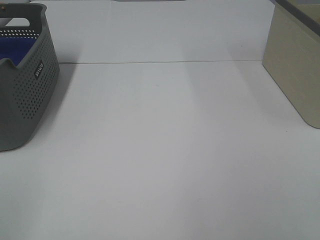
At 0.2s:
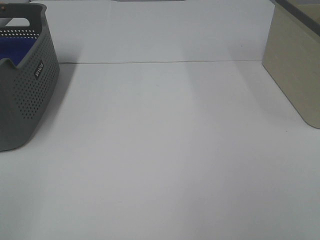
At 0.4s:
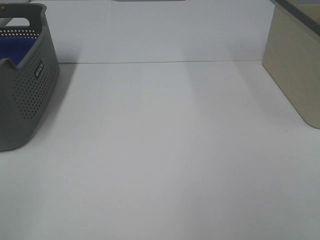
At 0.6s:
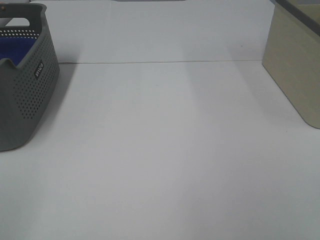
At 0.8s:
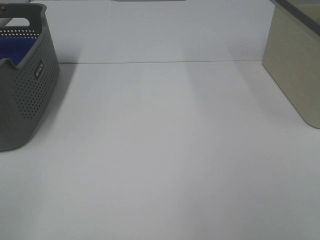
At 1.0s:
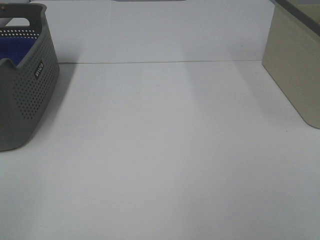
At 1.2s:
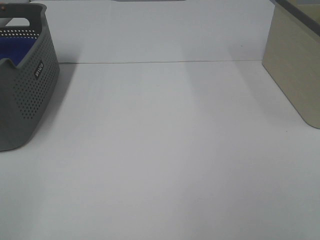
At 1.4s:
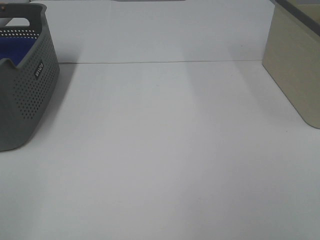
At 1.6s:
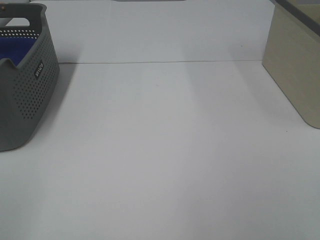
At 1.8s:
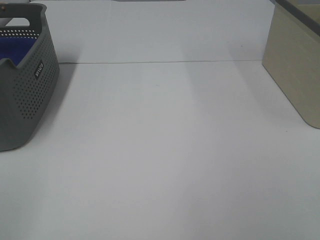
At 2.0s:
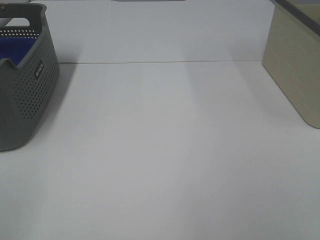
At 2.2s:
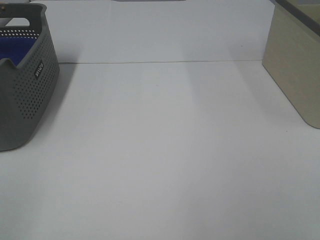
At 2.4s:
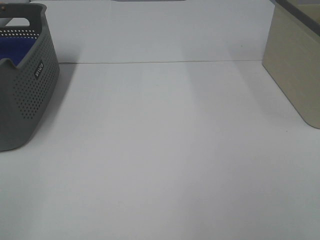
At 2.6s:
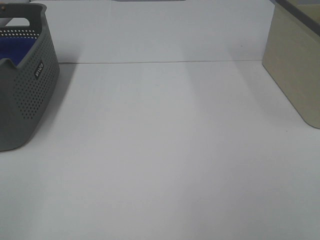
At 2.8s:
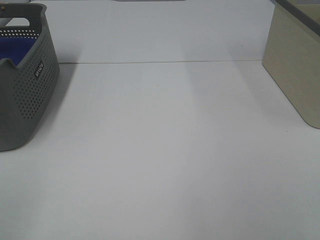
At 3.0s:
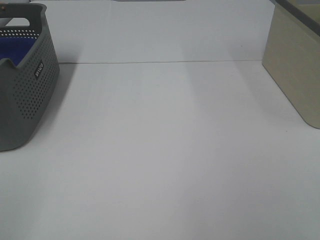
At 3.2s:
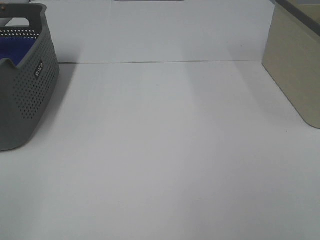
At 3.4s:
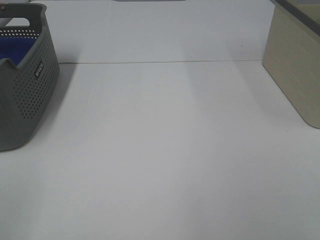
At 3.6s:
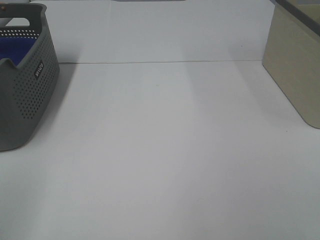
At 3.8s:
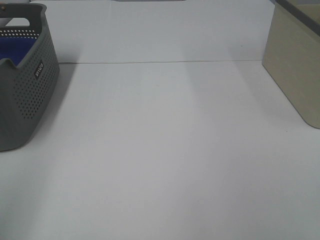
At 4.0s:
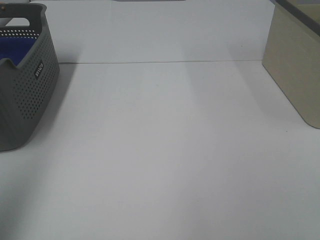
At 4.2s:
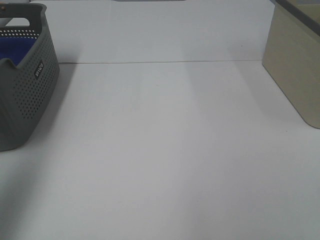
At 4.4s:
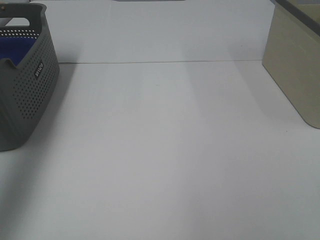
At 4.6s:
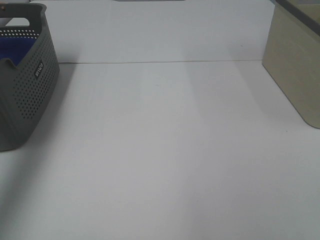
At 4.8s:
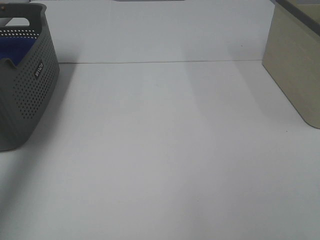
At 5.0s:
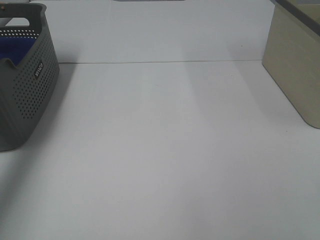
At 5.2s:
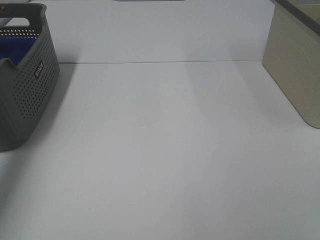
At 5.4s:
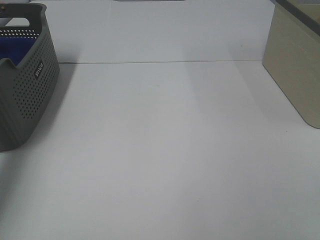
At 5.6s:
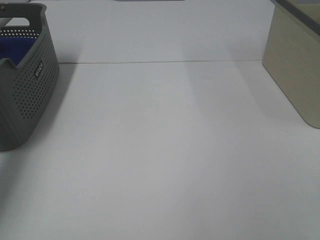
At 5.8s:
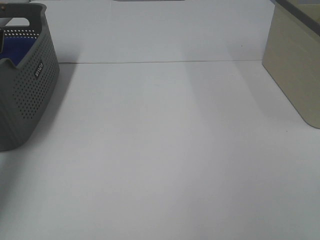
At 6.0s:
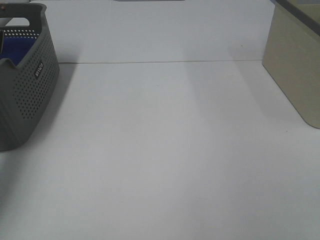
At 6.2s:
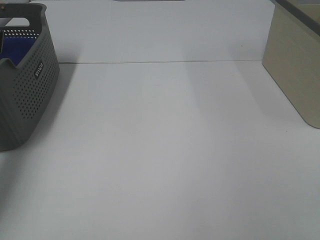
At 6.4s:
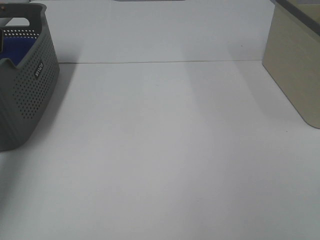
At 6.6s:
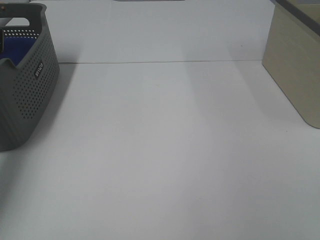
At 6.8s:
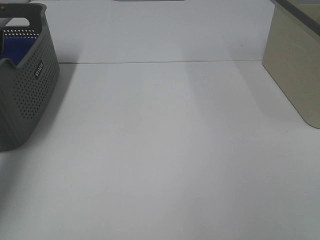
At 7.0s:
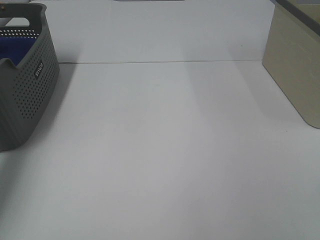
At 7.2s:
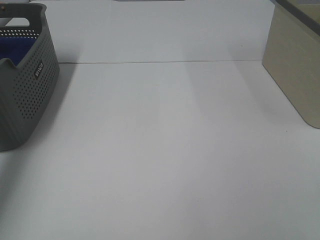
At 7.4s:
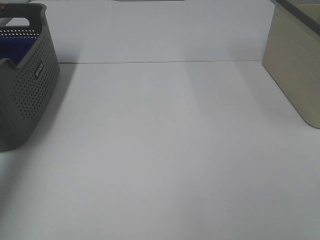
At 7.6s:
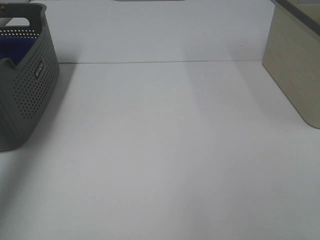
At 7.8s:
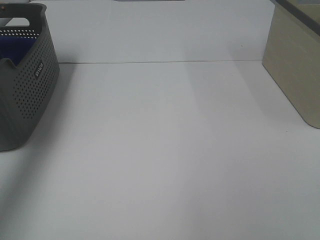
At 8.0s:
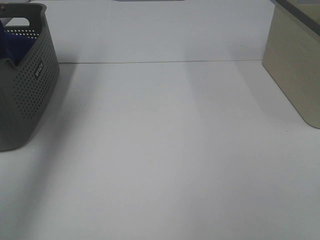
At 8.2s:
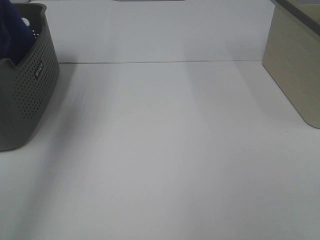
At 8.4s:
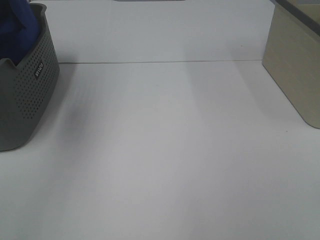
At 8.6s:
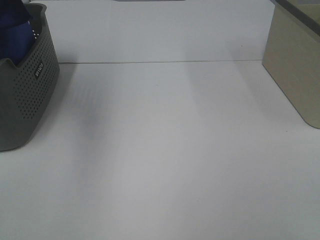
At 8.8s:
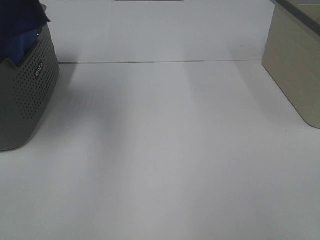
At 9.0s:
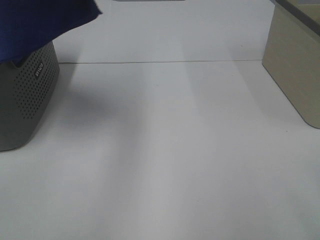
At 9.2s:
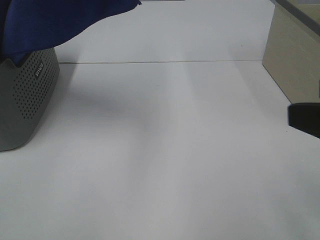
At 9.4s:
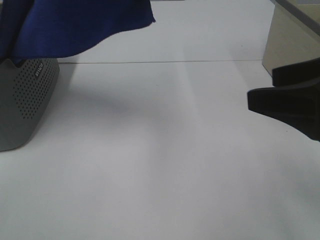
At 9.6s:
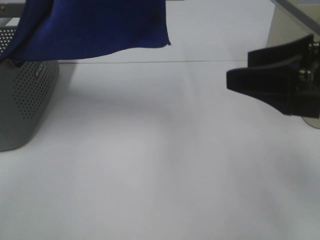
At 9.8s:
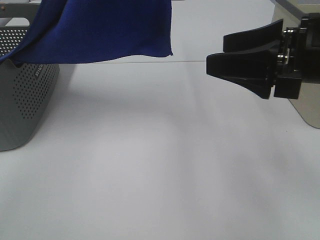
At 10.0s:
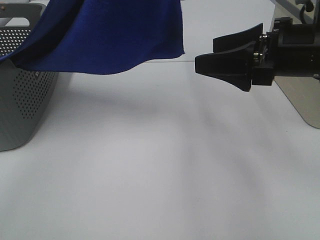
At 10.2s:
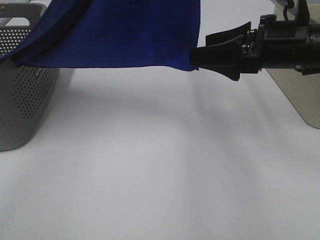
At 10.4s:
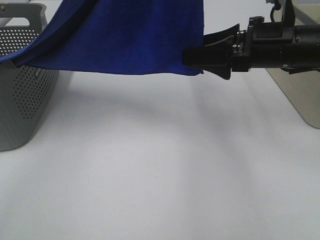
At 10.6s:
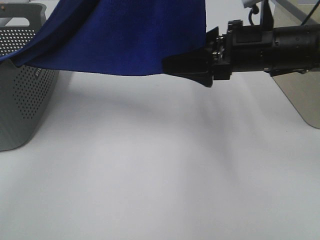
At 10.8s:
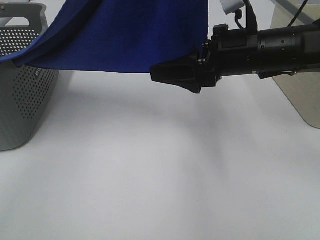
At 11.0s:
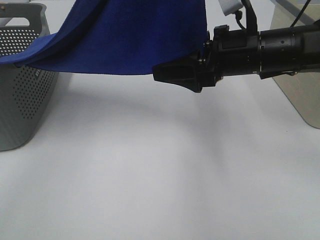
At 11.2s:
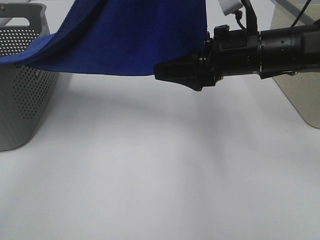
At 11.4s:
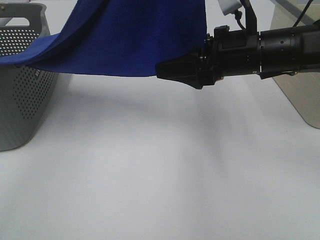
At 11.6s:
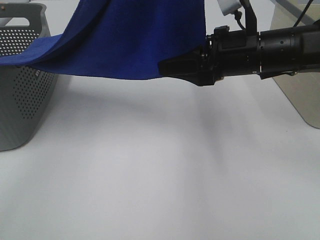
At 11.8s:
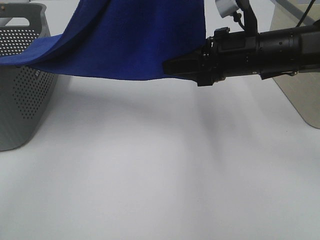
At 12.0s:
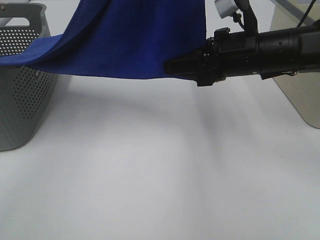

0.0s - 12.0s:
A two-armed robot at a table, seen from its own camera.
Task of the whole recording: Remove the towel and place it.
0.0s - 3.0s: Neither gripper changes place.
3.0s - 4.4s: The left gripper moves forward and upward, roughly 30 cm.
4.4s - 6.0s: The left gripper travels downward and forward by roughly 25 cm.
6.0s - 7.6s: The left gripper travels upward by approximately 15 cm, and closes.
7.6s - 9.0s: The left gripper shifts some 30 cm to the right, upward and backward, while the right gripper shifts some 5 cm forward.
9.0s - 10.4s: The left gripper is displaced to the right and downward by some 15 cm. Meanwhile the right gripper travels forward by approximately 25 cm.
10.4s - 12.0s: The right gripper closes its fingers.

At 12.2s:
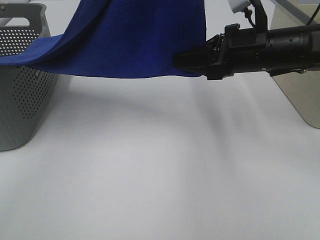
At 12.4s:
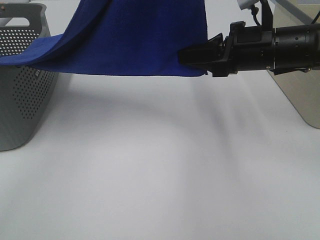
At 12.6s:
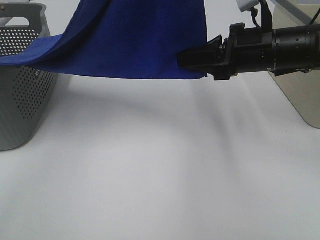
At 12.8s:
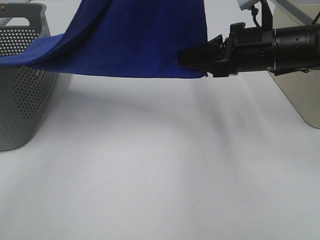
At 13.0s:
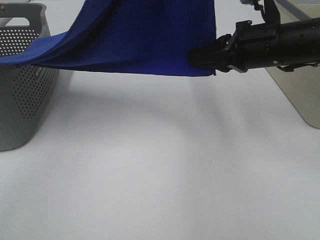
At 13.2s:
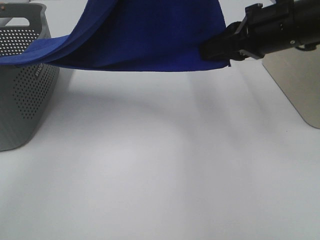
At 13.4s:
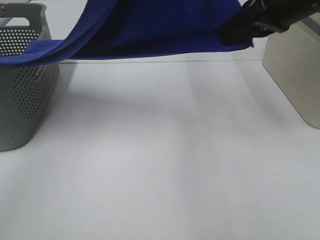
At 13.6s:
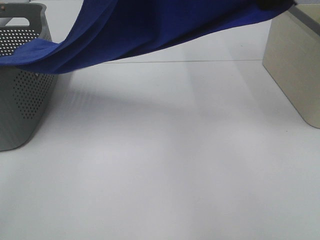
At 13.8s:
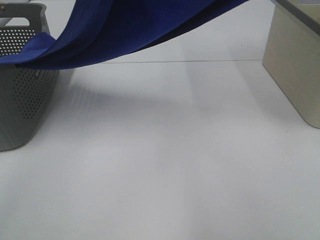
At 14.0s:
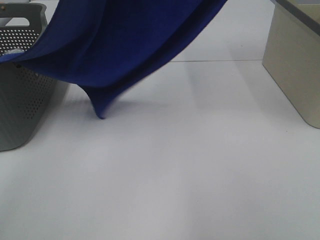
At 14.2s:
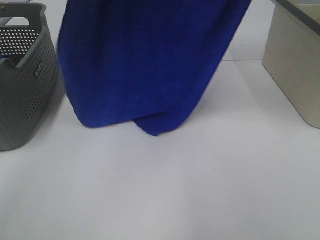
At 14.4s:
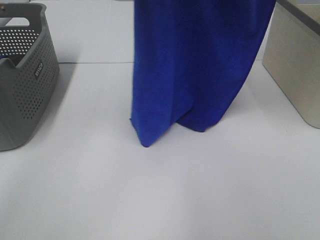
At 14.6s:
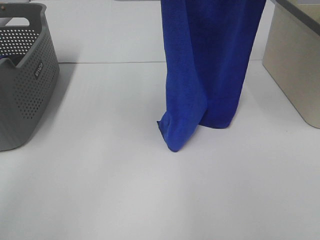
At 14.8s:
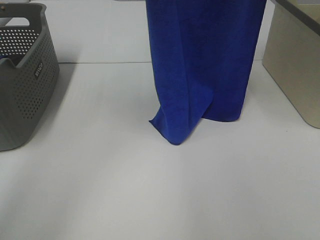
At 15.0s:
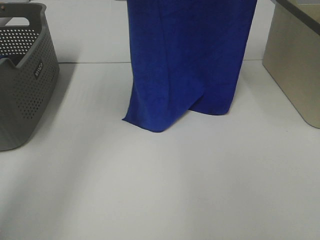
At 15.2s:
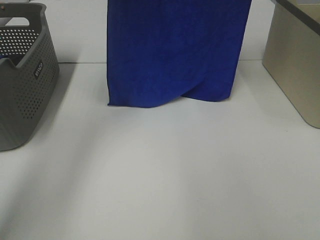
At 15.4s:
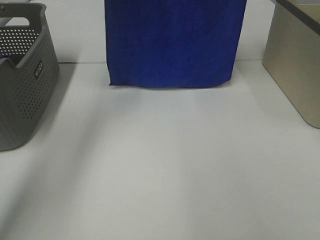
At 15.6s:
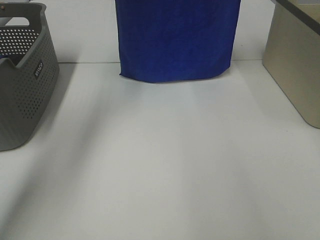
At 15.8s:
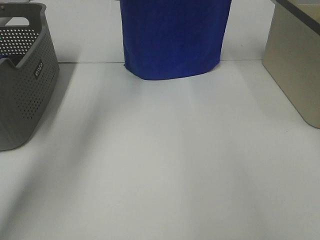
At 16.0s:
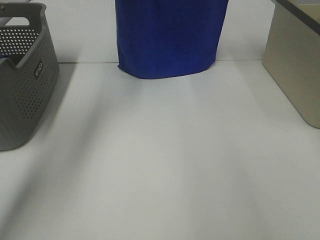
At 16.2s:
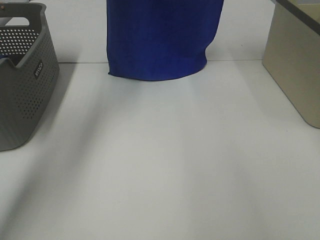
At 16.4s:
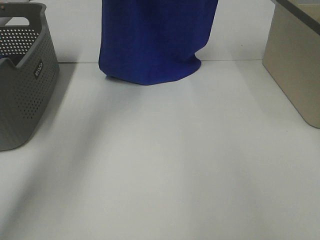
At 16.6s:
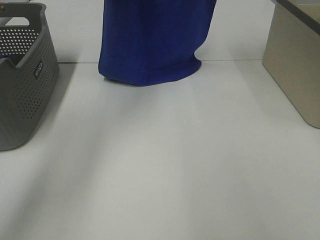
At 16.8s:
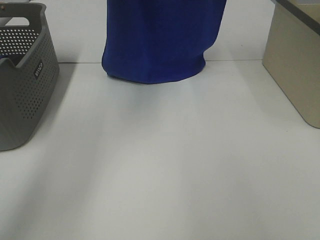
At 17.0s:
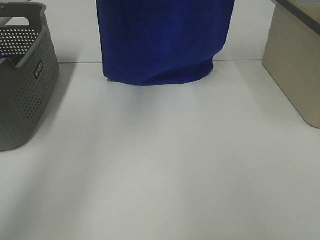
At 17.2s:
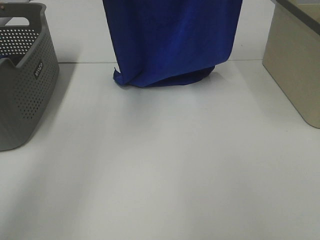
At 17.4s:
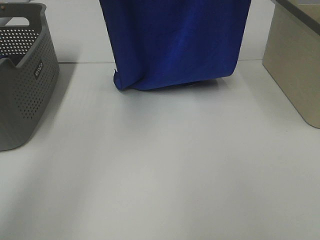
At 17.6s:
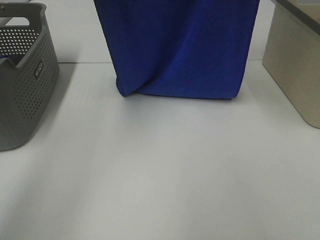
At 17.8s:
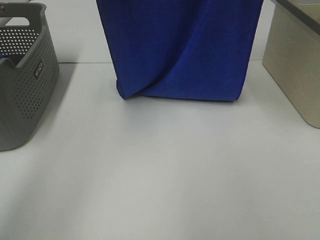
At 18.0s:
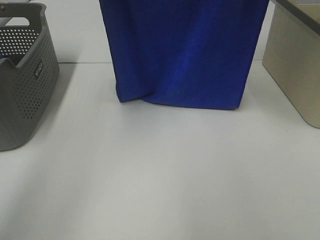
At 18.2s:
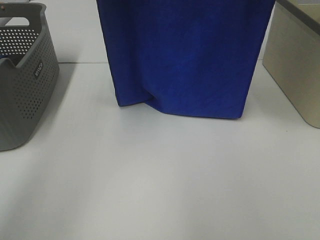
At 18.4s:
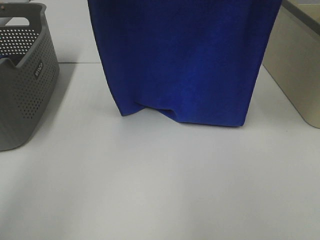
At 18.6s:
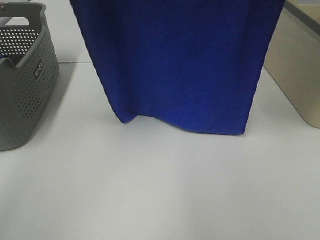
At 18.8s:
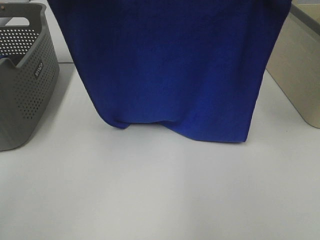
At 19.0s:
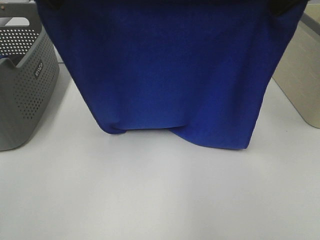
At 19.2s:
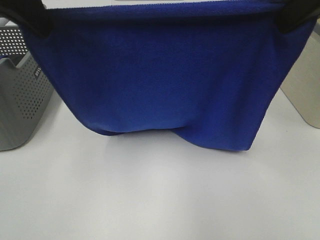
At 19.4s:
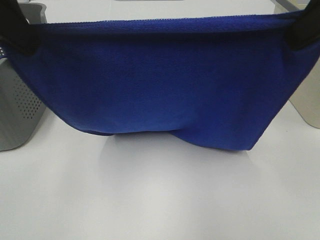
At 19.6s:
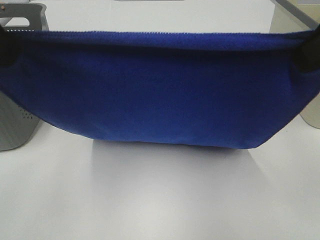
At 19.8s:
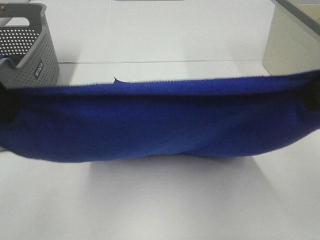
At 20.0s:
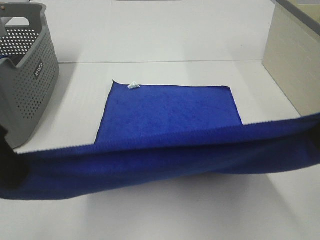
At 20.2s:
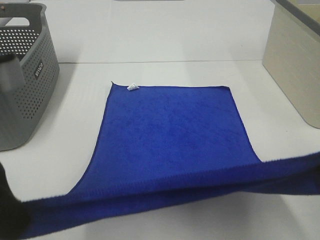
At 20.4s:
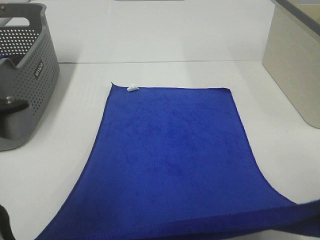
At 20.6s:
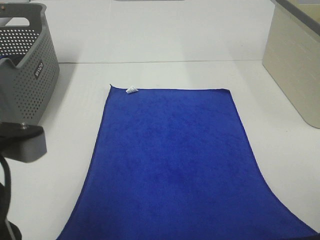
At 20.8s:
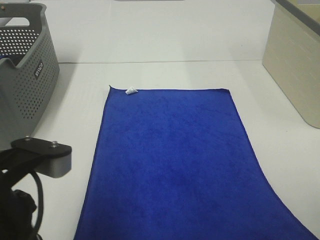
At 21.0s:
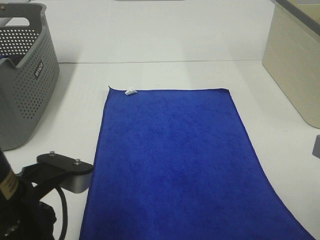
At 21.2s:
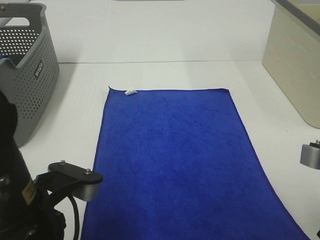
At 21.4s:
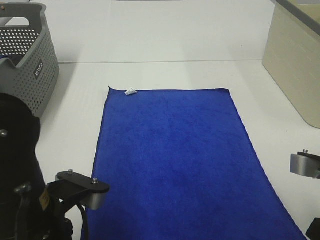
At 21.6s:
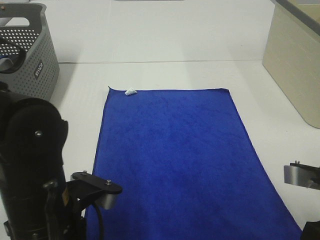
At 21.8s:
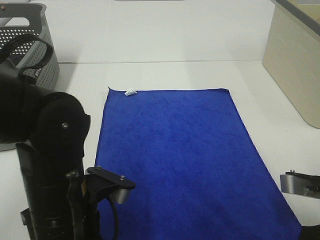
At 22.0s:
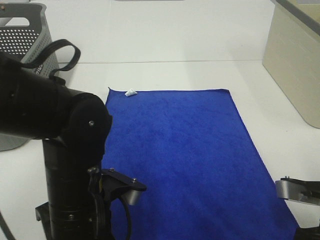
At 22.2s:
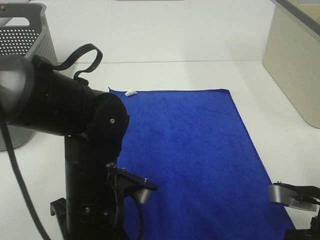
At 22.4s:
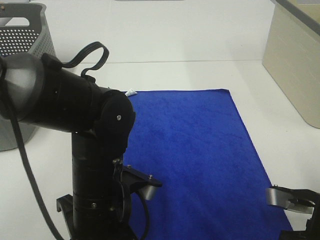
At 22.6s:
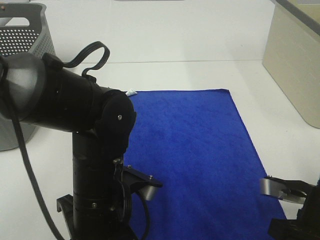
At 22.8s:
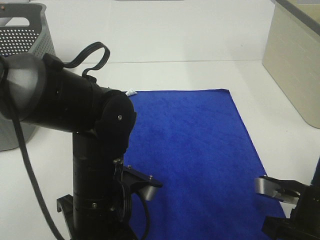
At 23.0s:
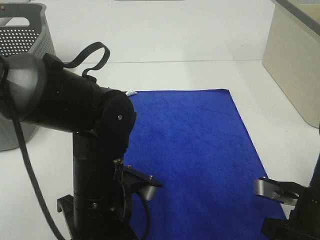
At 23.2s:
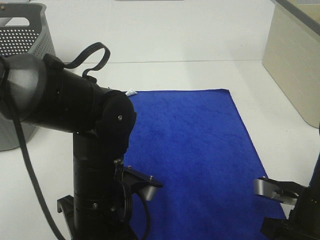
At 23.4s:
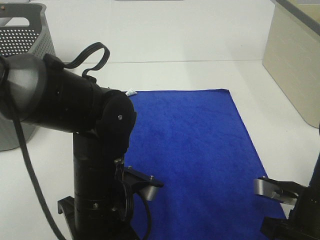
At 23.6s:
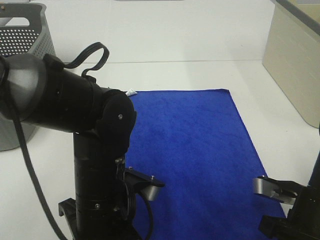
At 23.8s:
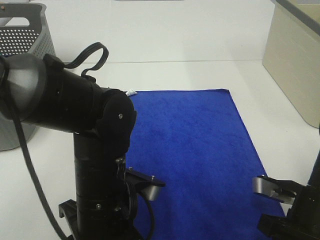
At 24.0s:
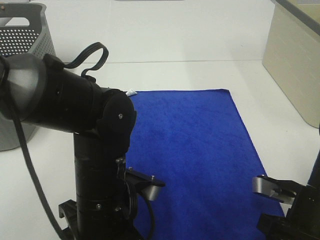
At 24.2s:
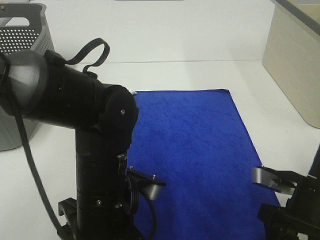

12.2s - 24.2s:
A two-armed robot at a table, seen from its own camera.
Task of the whole recording: Remove the towel and place it.
Step, 12.6s - 19.0s: Left hand: spread the blue towel flat on the table.
Step, 12.6s - 19.0s: Right hand: spread the blue towel flat on the table.
12.2s - 13.8s: The left gripper is displaced forward and to the left by some 5 cm. The right gripper shifts some 20 cm upward.
13.8s - 15.2s: Both grippers move forward, about 10 cm.
15.2s - 16.6s: There are only small adjustments of the grippers.
16.6s - 18.2s: The two grippers go approximately 10 cm backward.
18.2s - 19.8s: The two grippers go some 25 cm backward and downward.
19.8s - 21.2s: The right gripper goes approximately 15 cm downward; the left gripper goes about 20 cm downward and to the right.
21.2s - 22.6s: The left gripper travels to the right, downward and forward by approximately 10 cm. The right gripper goes about 10 cm downward.
22.6s - 24.2s: The left gripper opens its fingers. Meanwhile the right gripper opens.
